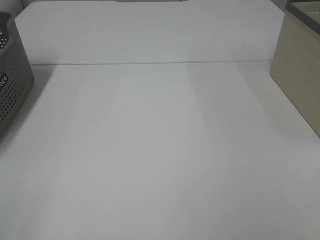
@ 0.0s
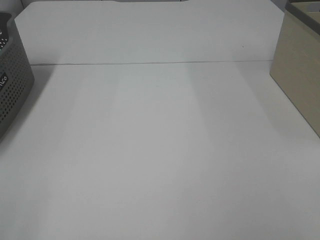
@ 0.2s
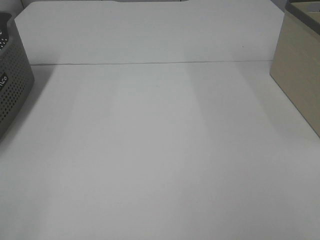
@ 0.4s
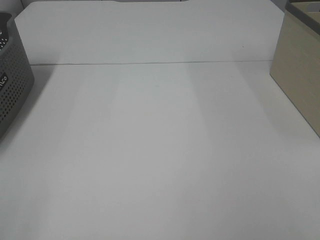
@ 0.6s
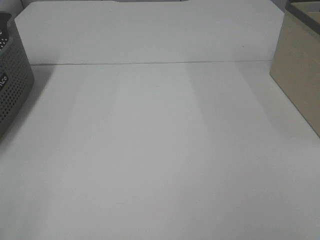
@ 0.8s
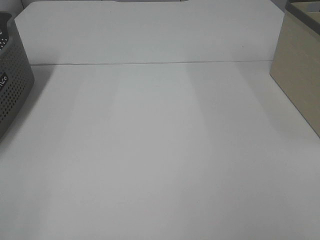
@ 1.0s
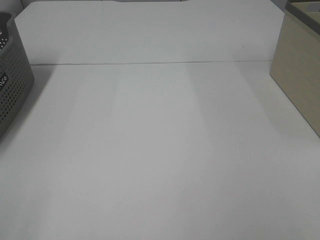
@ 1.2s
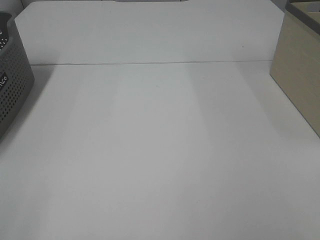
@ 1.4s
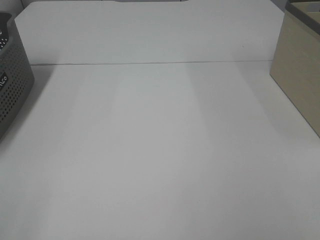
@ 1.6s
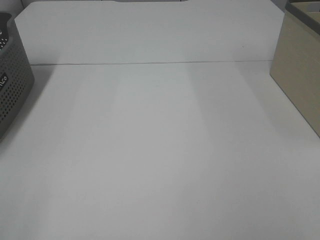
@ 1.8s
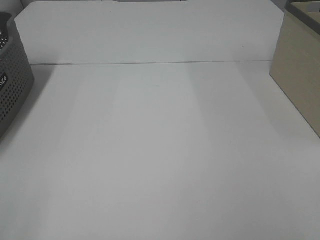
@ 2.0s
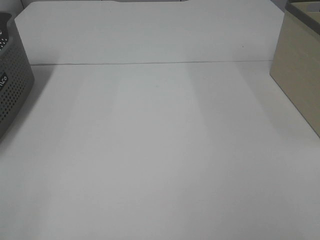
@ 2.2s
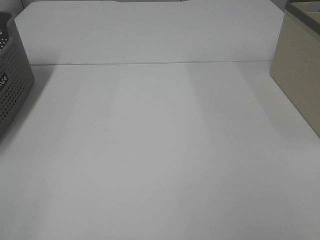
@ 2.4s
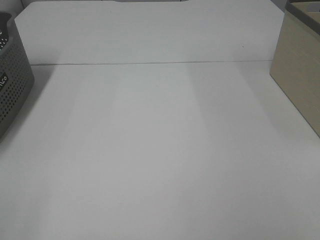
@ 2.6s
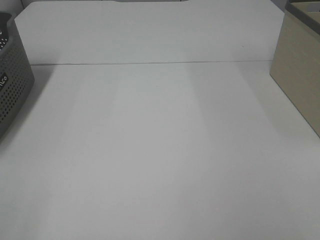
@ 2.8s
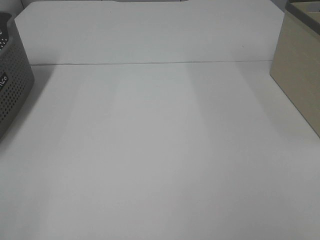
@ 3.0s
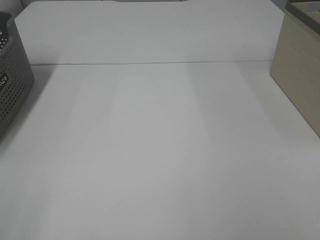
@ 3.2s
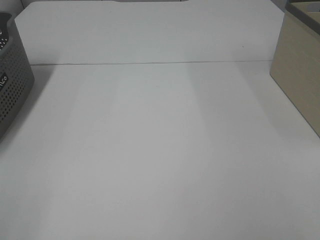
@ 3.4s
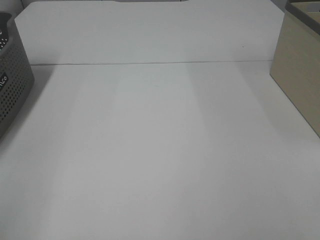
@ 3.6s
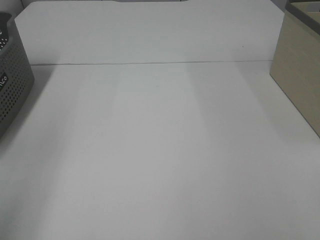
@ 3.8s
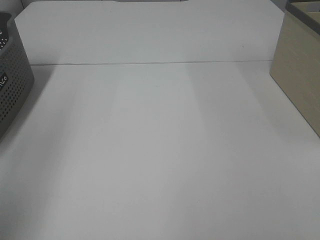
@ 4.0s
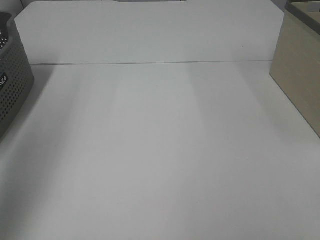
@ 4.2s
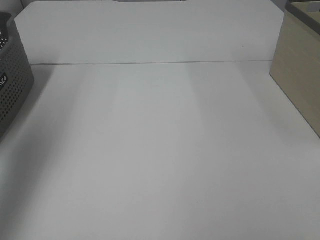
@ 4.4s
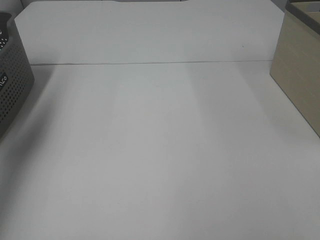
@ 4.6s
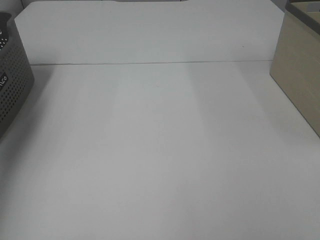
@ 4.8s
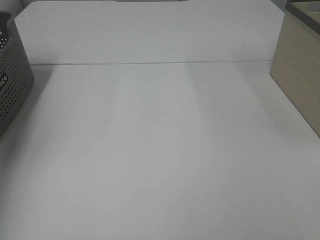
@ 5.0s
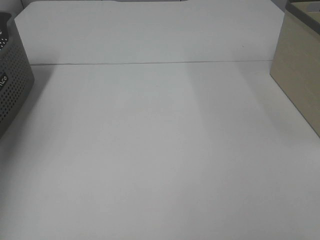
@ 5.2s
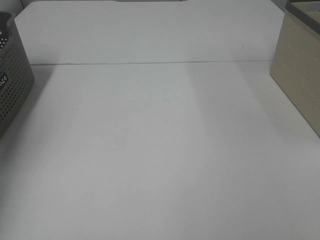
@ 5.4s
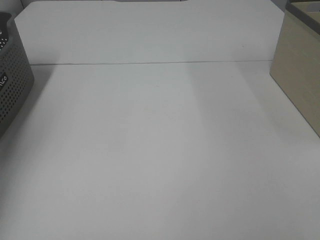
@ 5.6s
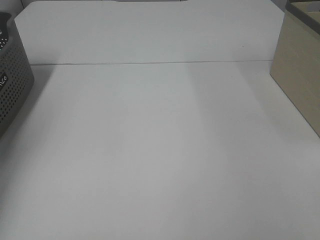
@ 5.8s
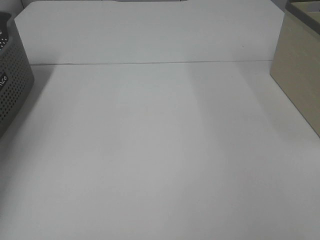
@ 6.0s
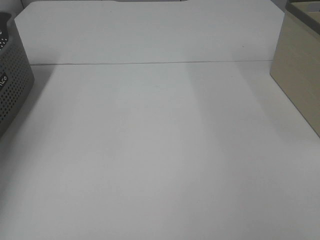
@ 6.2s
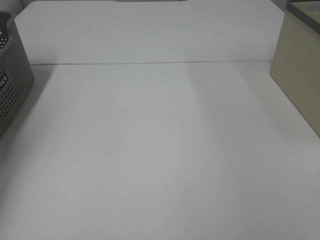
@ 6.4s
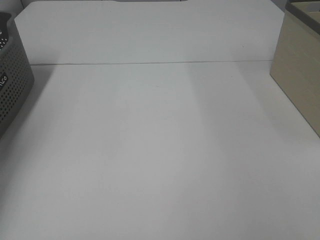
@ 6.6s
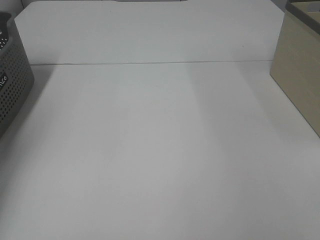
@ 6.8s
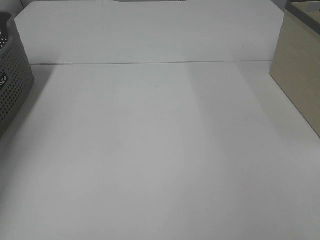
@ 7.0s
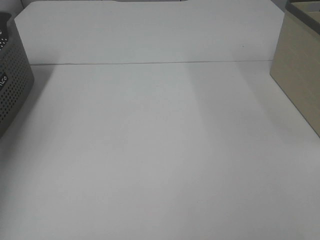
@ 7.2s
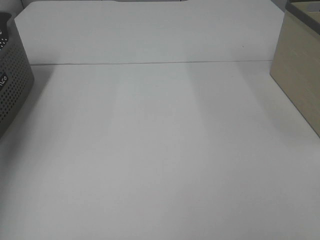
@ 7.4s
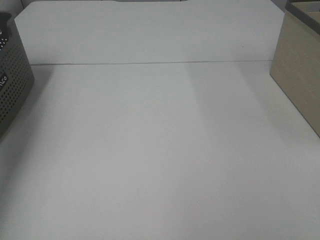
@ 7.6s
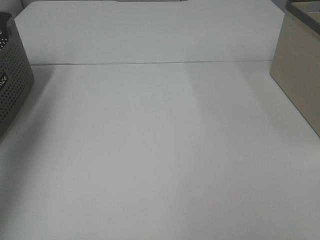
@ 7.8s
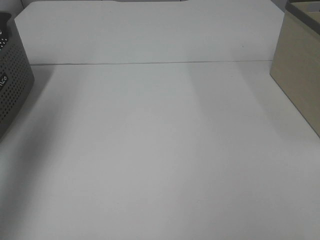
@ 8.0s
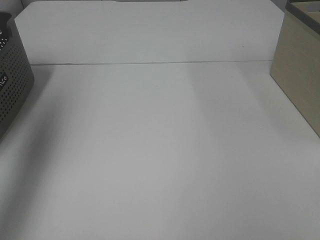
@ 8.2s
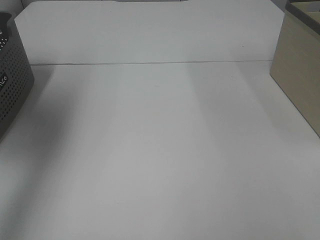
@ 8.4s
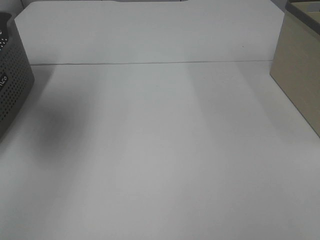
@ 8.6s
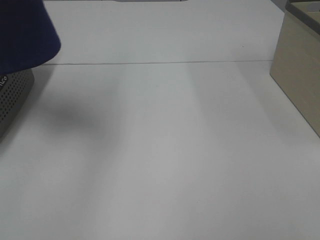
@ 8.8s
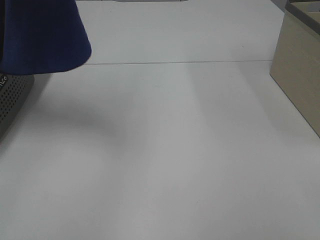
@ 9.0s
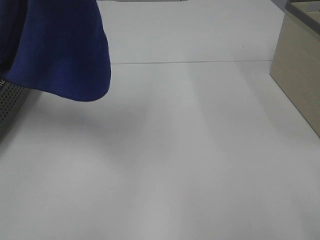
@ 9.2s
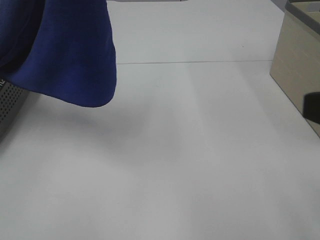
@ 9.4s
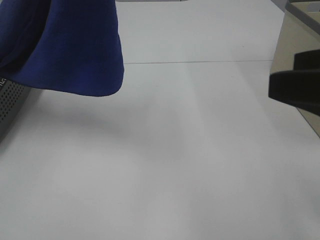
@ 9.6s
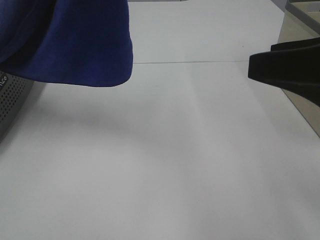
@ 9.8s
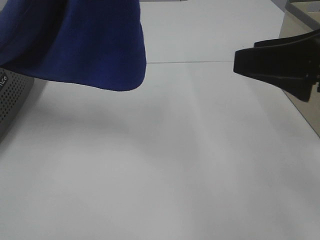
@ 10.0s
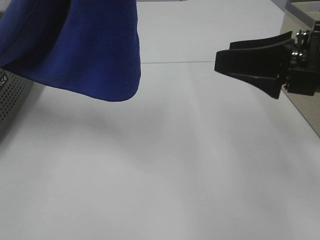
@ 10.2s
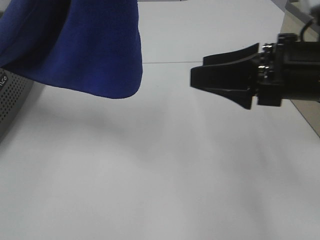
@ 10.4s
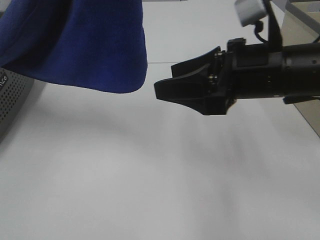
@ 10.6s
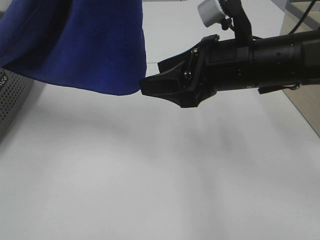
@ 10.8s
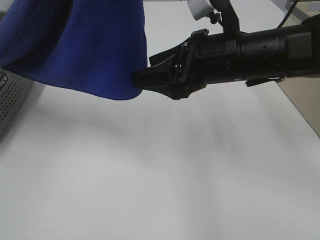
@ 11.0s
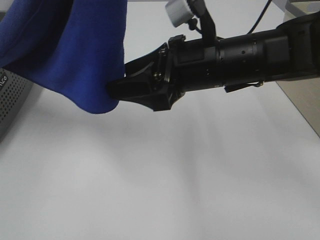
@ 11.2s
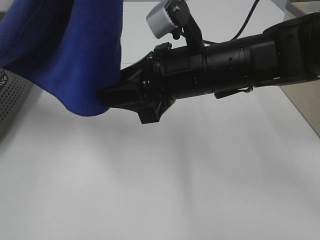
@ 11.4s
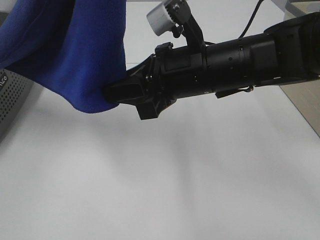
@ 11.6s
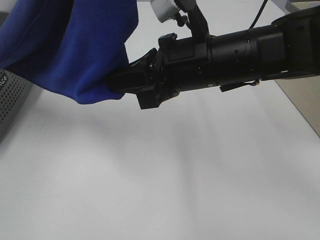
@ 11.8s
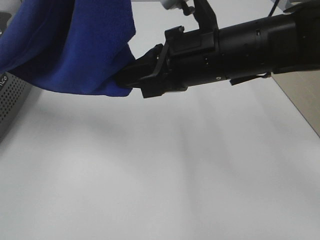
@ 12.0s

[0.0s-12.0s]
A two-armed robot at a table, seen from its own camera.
Task of the whole recording: Remove the towel and place it.
0.0s to 3.0s: Both grippers stay about where they are.
3.0s to 4.4s: The left gripper moves forward and upward, about 30 cm.
4.4s to 6.0s: The left gripper moves downward, forward and to the left, about 30 cm.
6.0s to 7.6s: The left gripper goes some 20 cm upward, and closes its fingers.
7.6s to 9.0s: The left gripper travels to the right, backward and upward by about 30 cm.
9.0s to 10.4s: The left gripper shifts about 5 cm to the right, while the right gripper goes some 25 cm forward and to the left.
10.4s to 12.0s: The right gripper travels to the left by approximately 10 cm, and closes.

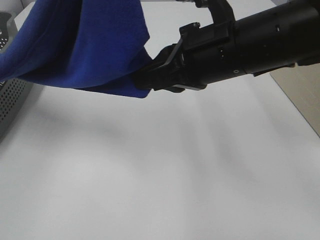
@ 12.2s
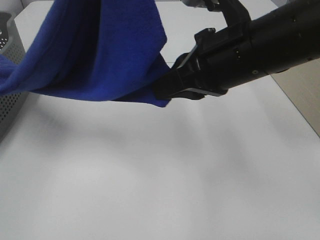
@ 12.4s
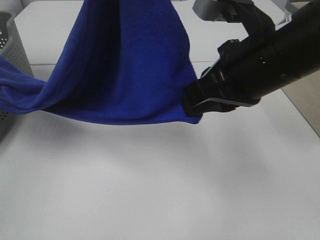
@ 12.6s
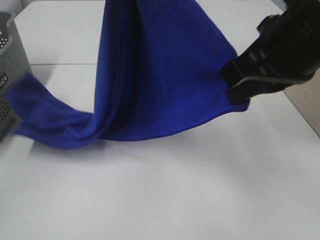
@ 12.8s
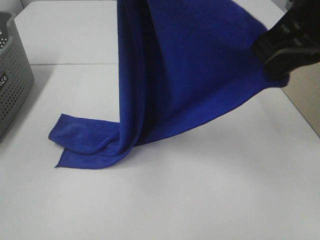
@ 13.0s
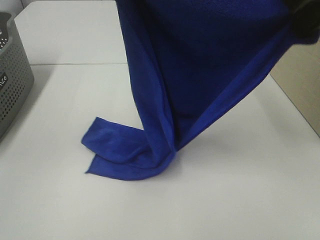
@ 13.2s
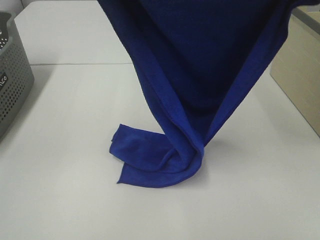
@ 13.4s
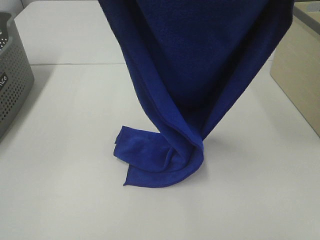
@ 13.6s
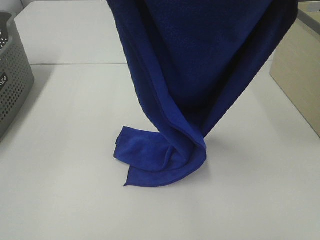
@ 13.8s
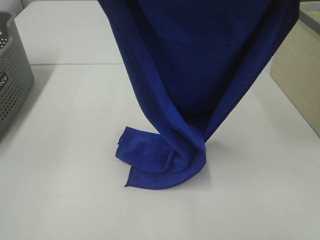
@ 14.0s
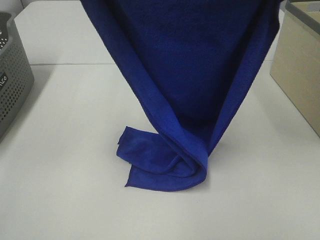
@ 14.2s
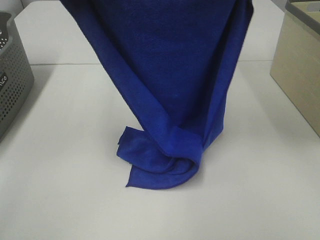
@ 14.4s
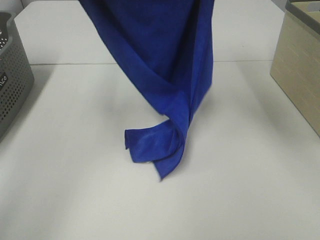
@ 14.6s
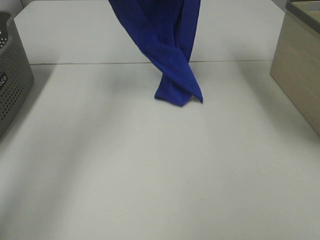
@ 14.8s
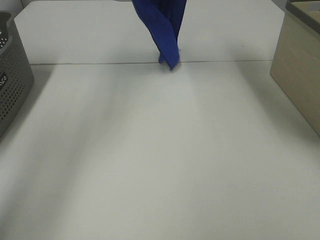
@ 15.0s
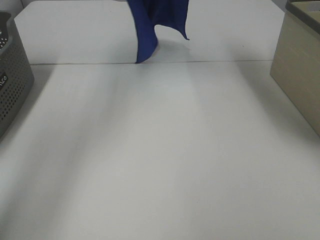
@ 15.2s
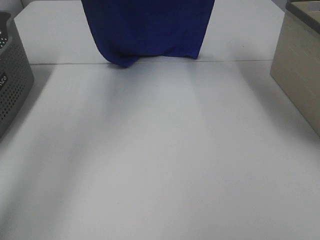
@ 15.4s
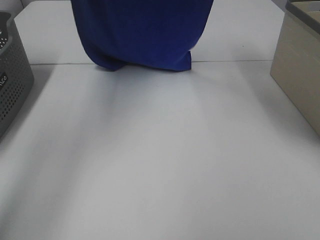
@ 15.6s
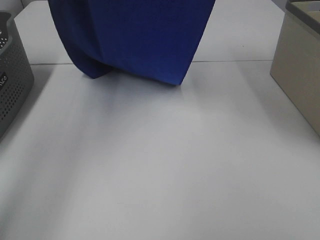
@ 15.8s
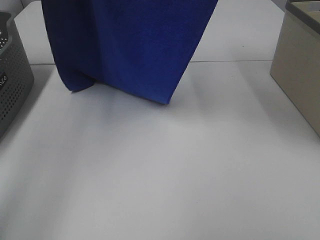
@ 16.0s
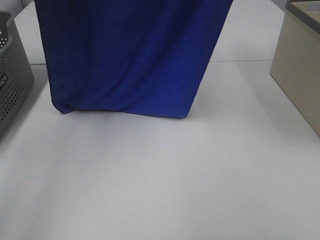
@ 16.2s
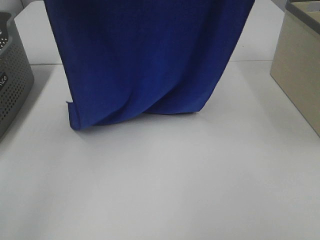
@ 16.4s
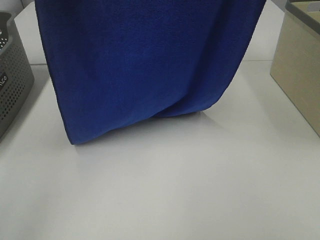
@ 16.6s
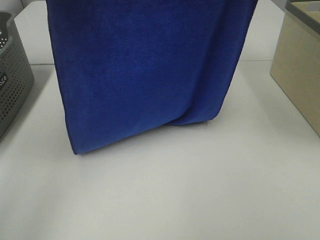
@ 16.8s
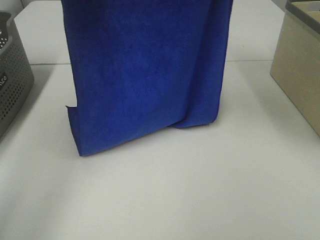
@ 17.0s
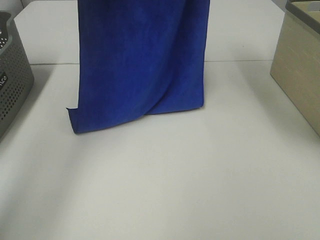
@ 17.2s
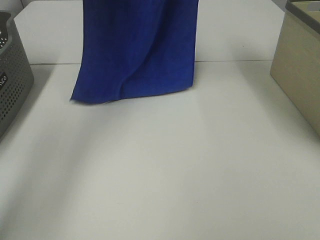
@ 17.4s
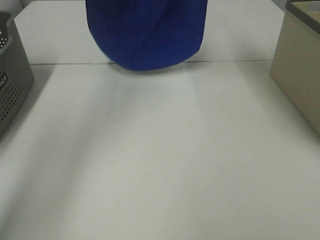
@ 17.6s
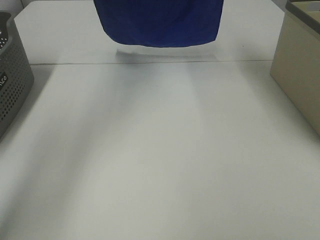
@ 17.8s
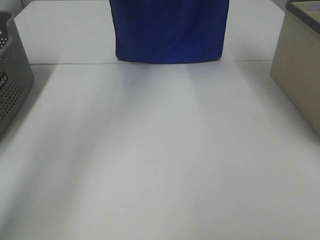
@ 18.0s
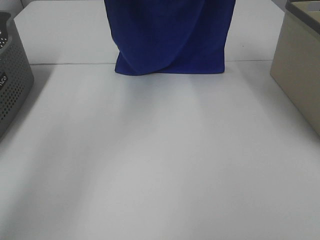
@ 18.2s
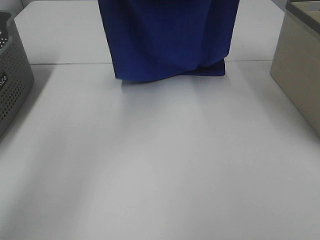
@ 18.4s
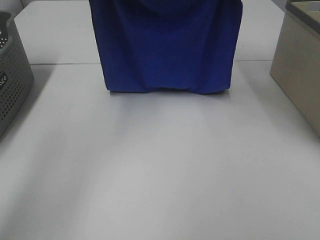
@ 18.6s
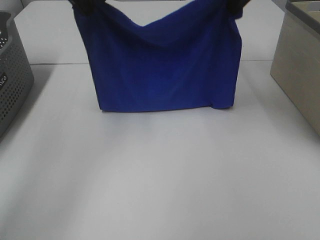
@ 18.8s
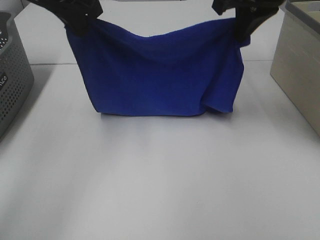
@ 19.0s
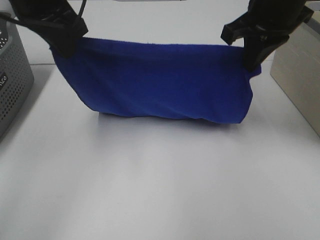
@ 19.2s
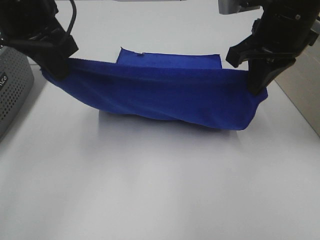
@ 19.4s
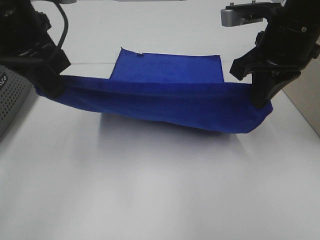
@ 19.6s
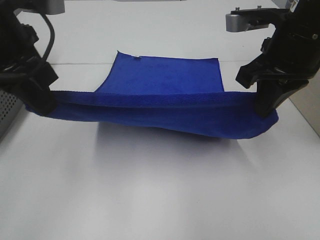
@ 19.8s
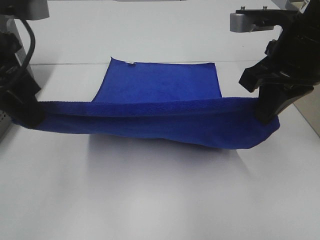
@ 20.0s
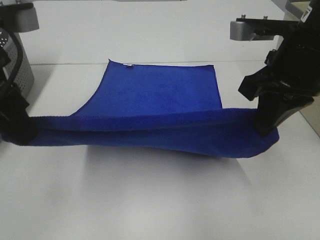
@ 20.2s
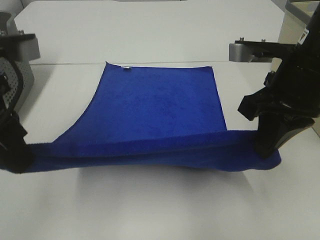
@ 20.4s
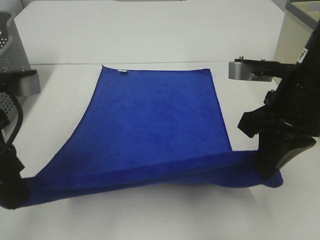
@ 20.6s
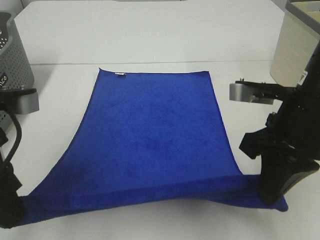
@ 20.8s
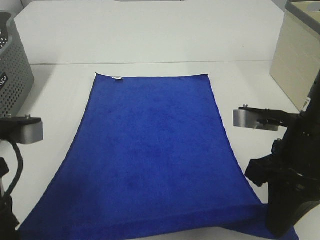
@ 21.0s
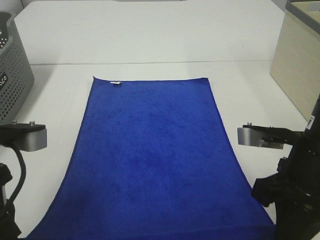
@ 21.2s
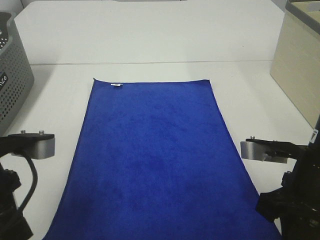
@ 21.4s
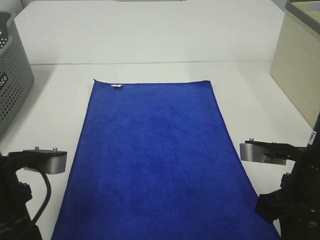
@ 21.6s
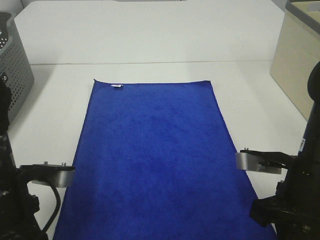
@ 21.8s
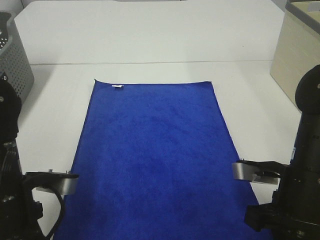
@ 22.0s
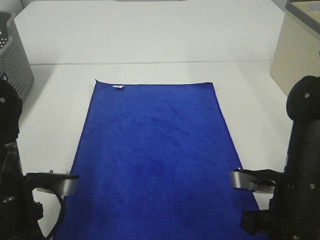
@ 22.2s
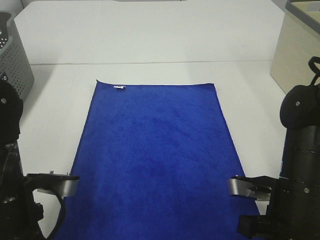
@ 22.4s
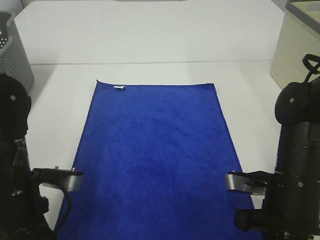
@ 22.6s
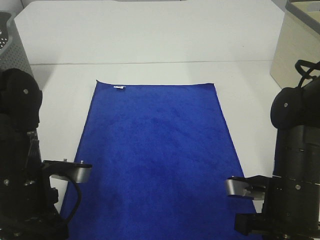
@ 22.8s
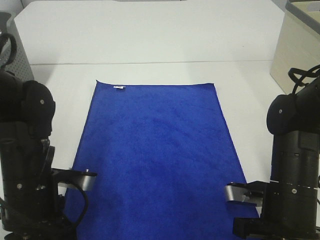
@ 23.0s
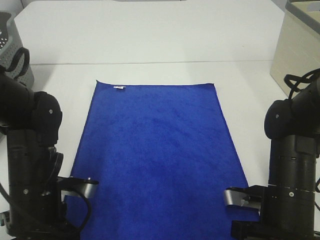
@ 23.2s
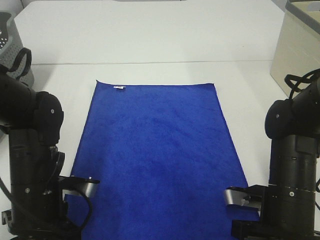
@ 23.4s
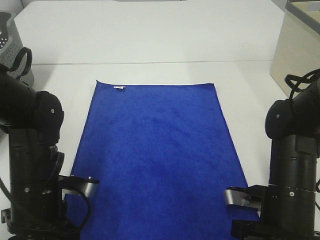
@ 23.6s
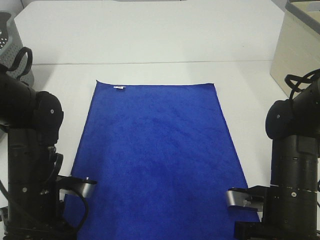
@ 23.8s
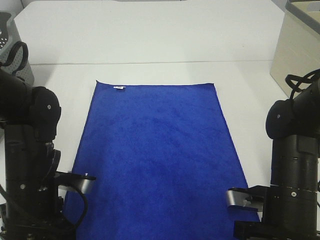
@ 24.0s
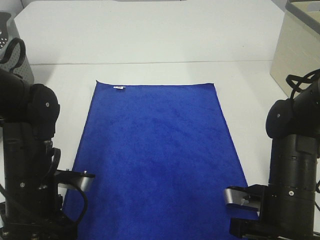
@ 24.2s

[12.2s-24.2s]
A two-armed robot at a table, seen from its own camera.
Task of the whole recording: Remove the towel and place it.
Step, 12.8s to 19.6s: Left hand: spread the blue towel flat on the table.
Step, 12.8s to 19.6s: Right hand: spread the blue towel flat on the table.
12.2s to 13.8s: The right gripper goes approximately 20 cm upward and to the right.
13.8s to 15.2s: The grippers both shift forward by roughly 25 cm.
15.2s to 16.6s: The grippers both shift backward by about 15 cm.
16.6s to 18.2s: The left gripper goes roughly 15 cm forward and to the right; the right gripper travels forward by approximately 15 cm.
18.2s to 19.8s: The left gripper is displaced backward and downward by some 25 cm. Meanwhile the right gripper travels downward and backward by approximately 20 cm.
19.8s to 21.2s: The grippers both shift backward and downward by roughly 15 cm.
21.2s to 22.6s: The grippers both shift downward by some 10 cm.
22.6s to 24.2s: The left gripper opens. Meanwhile the right gripper opens.
